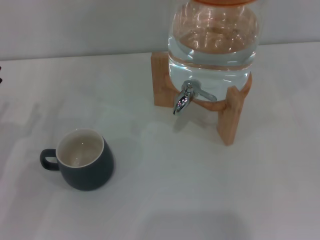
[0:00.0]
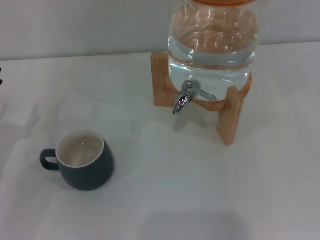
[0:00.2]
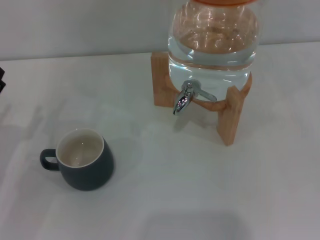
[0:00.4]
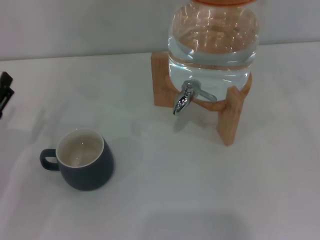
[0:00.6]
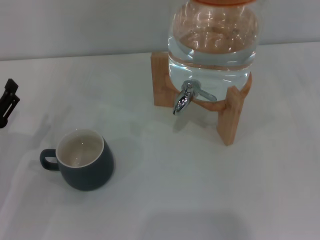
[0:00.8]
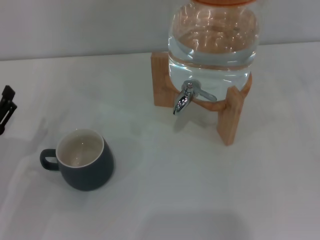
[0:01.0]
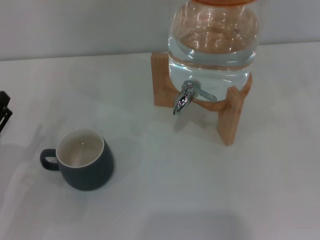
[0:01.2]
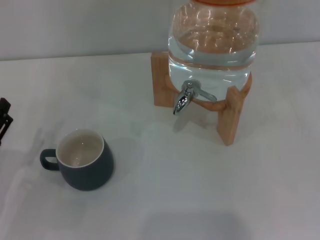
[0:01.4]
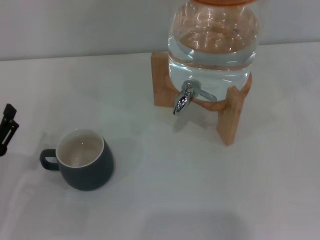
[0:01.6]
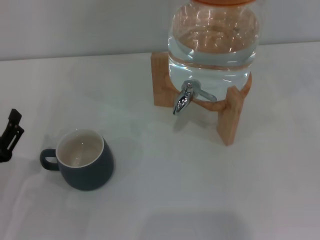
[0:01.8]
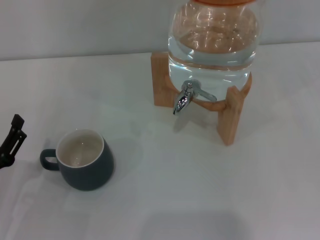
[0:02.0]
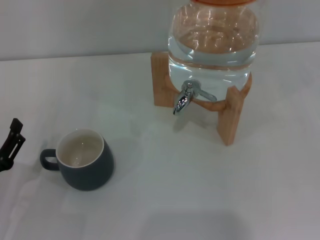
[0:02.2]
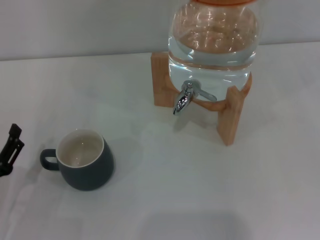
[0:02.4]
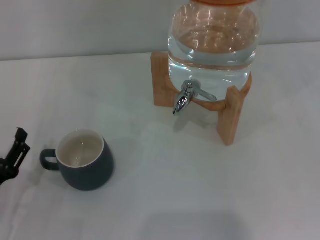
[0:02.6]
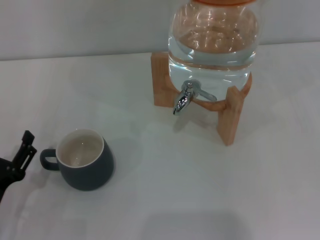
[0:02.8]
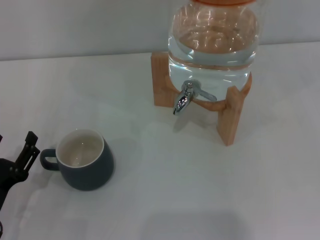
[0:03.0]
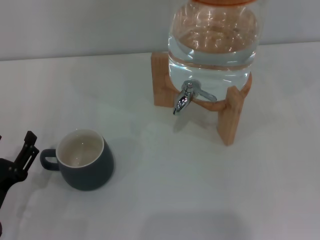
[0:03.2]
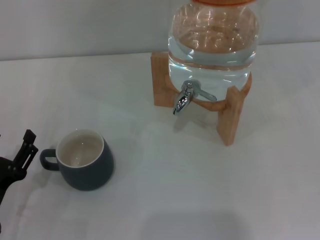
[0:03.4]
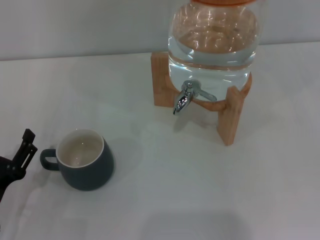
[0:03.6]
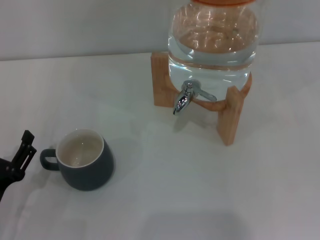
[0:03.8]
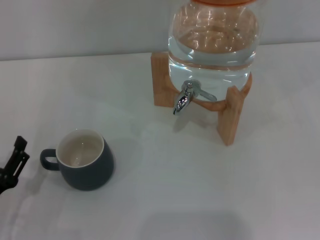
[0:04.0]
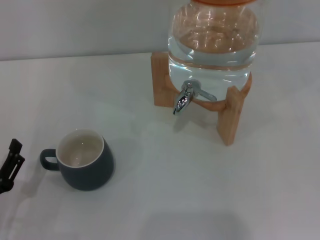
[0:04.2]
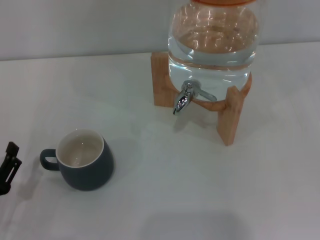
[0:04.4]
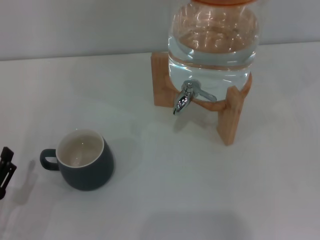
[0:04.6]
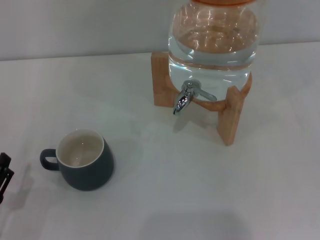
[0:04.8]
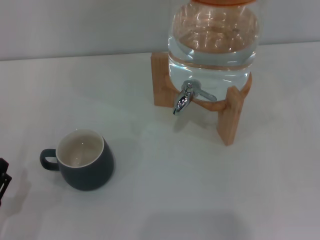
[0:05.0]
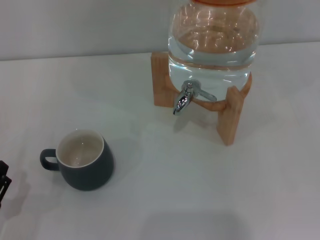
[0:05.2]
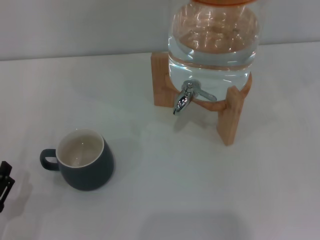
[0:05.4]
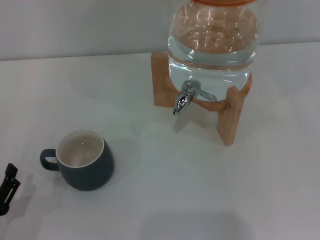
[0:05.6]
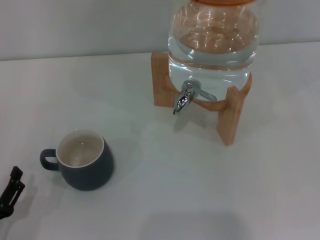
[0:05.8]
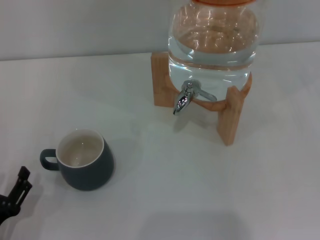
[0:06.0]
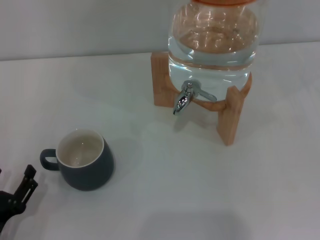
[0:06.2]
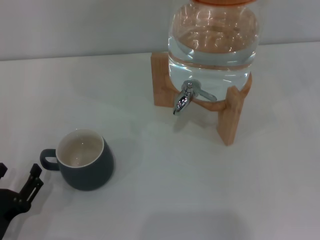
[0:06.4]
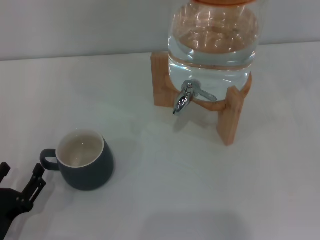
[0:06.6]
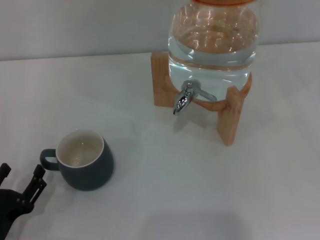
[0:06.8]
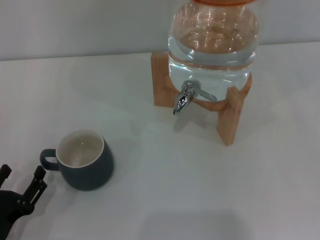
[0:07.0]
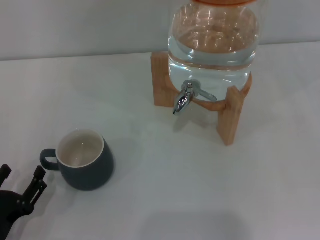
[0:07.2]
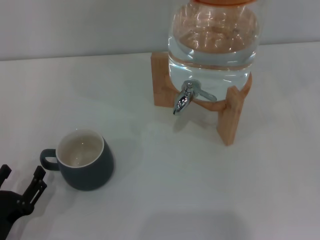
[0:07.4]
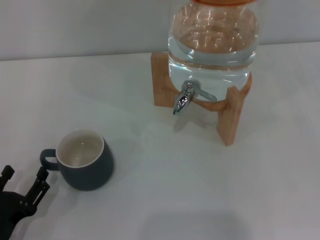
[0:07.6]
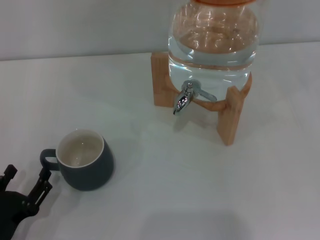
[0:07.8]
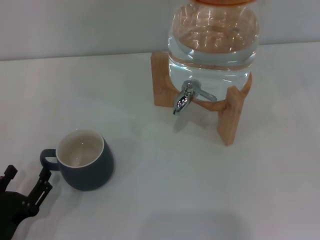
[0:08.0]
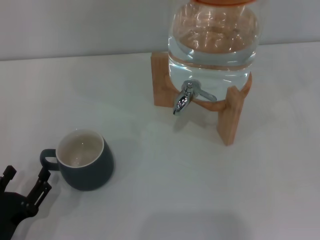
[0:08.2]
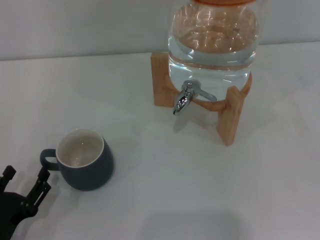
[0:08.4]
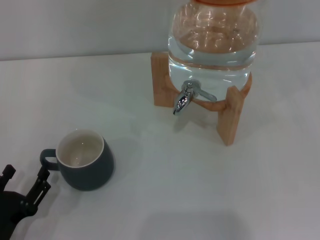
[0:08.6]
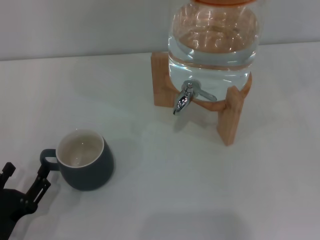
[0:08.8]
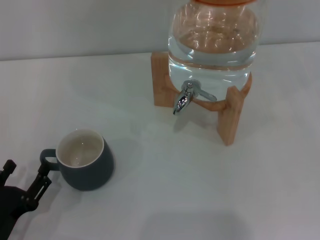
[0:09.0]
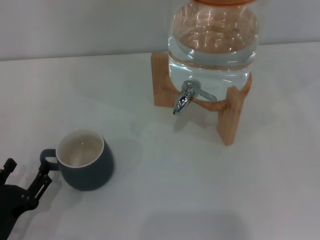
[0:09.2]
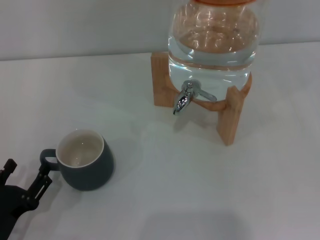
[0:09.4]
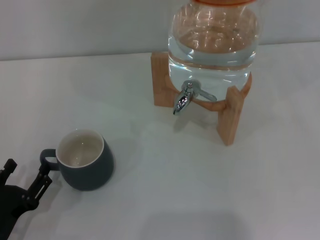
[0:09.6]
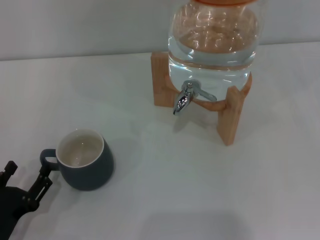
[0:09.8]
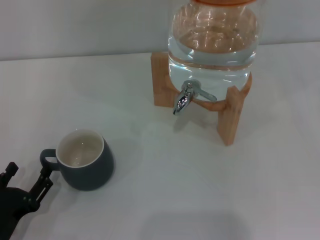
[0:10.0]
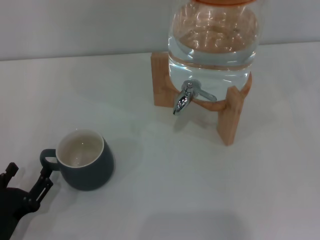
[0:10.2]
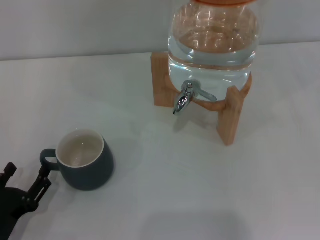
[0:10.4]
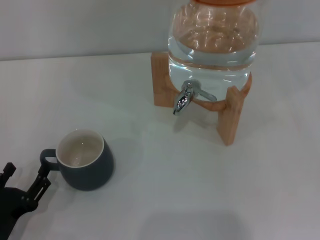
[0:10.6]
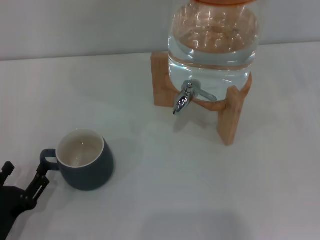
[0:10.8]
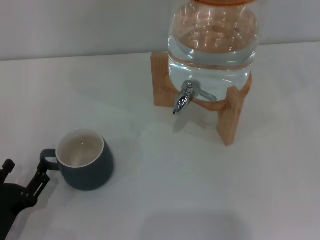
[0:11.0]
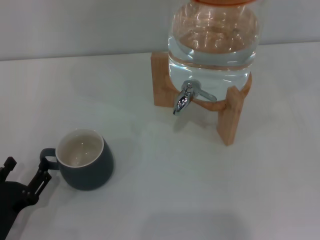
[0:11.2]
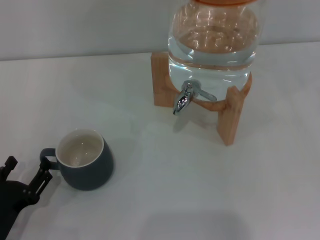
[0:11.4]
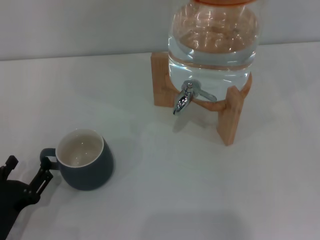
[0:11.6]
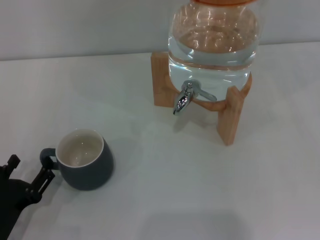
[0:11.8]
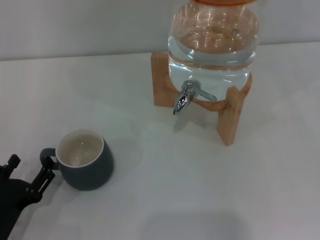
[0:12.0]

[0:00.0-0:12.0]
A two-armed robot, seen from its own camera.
Task of the whole recording: the left gripper pick up the black cup and place it horizontally under the faucet, the right gripper turn on the faucet to fill the cup, and then turn off the faucet.
0:00.0 to 0:01.6: The left gripper heads backward, covering approximately 5 cm.
0:01.6 to 0:04.4: The grippers make only small movements.
0:04.4 to 0:06.0: The grippers move only a little.
0:06.0 to 0:07.6: Both grippers stay about where they are.
0:07.6 to 0:10.4: Neither gripper changes place.
0:10.4 to 0:12.0: Both grippers stay put.

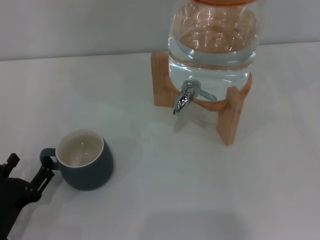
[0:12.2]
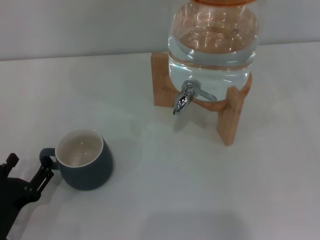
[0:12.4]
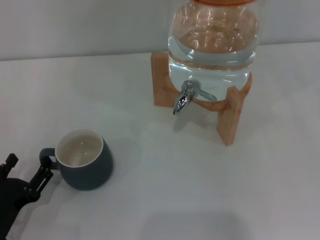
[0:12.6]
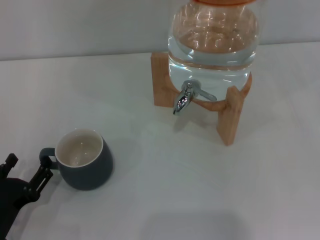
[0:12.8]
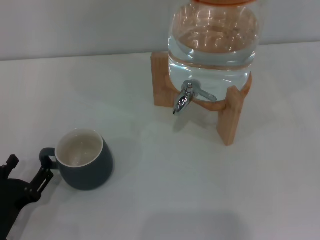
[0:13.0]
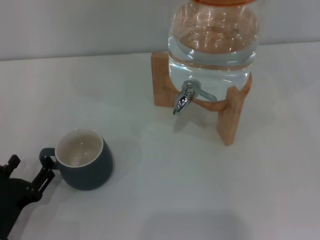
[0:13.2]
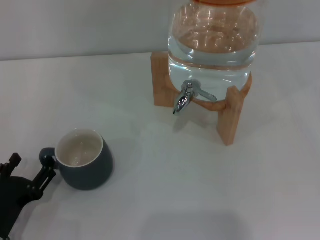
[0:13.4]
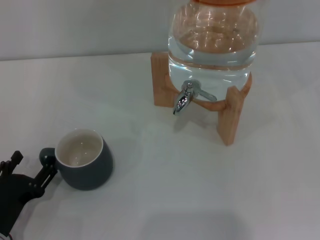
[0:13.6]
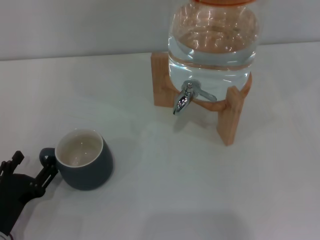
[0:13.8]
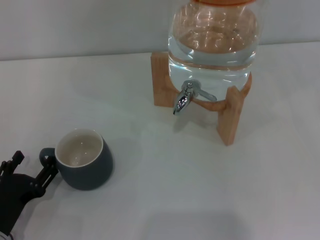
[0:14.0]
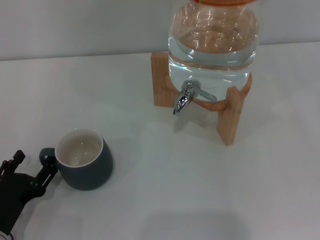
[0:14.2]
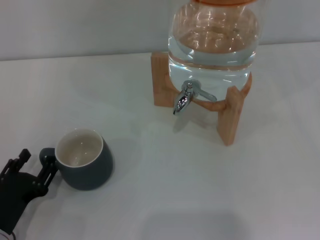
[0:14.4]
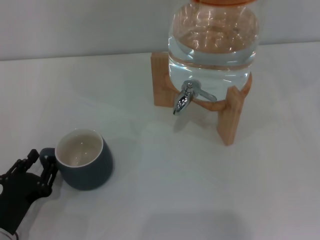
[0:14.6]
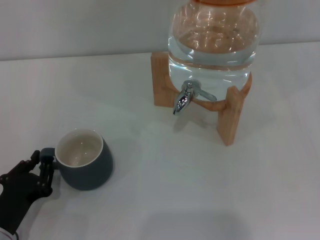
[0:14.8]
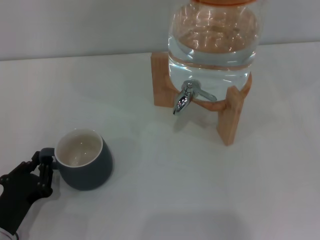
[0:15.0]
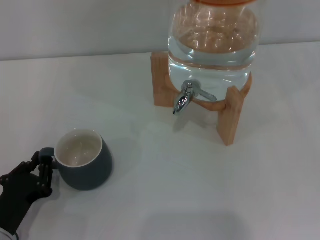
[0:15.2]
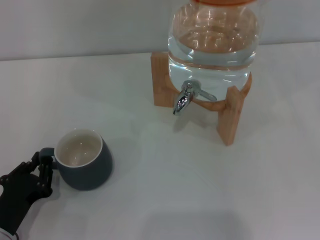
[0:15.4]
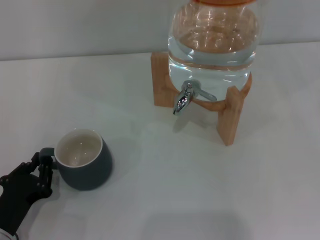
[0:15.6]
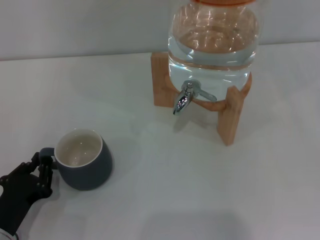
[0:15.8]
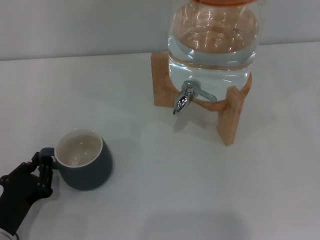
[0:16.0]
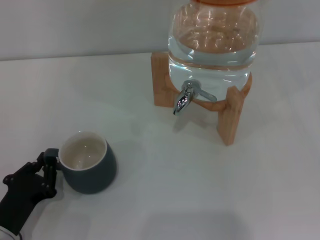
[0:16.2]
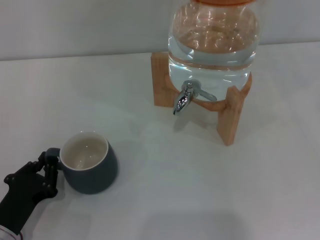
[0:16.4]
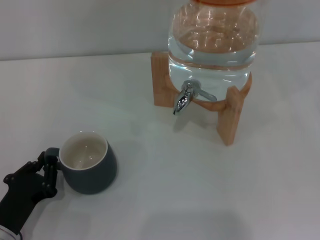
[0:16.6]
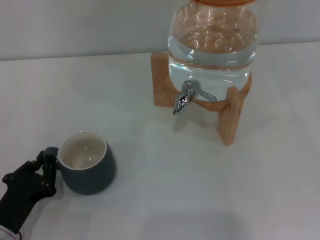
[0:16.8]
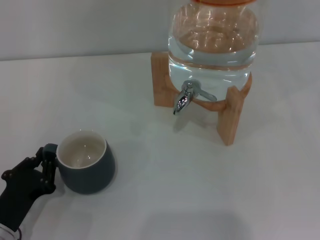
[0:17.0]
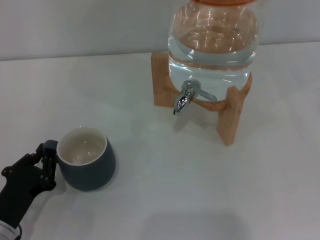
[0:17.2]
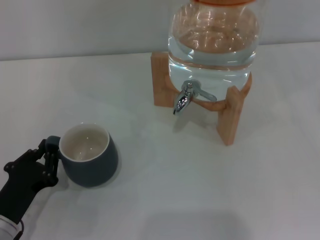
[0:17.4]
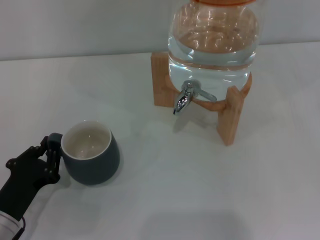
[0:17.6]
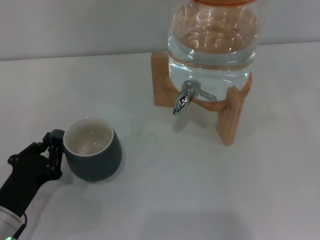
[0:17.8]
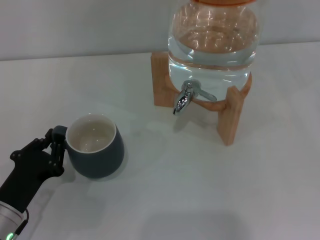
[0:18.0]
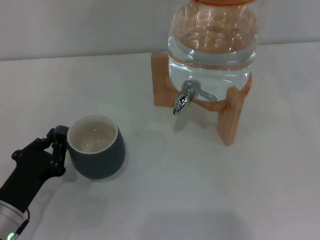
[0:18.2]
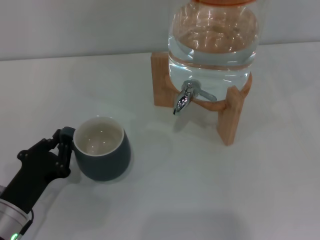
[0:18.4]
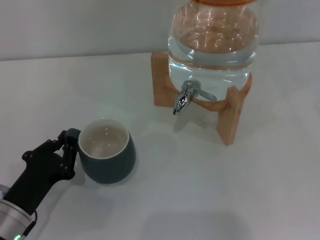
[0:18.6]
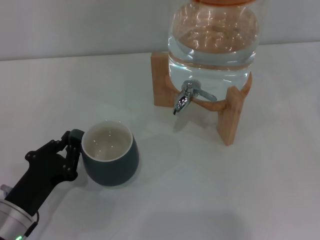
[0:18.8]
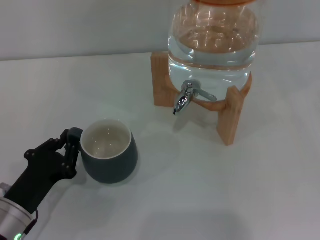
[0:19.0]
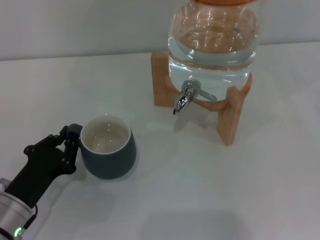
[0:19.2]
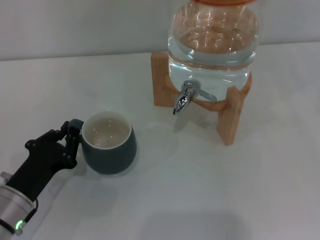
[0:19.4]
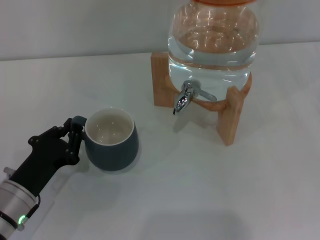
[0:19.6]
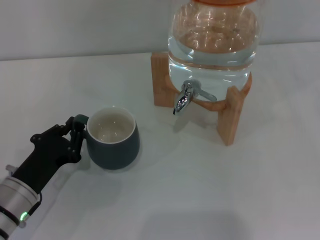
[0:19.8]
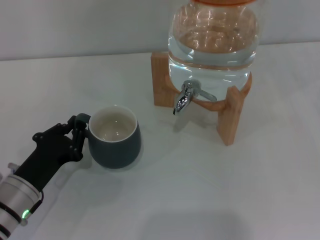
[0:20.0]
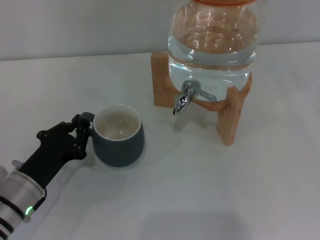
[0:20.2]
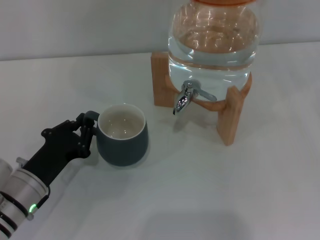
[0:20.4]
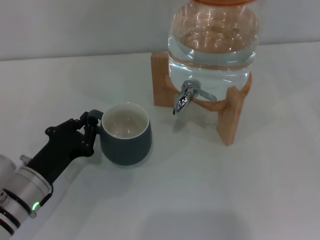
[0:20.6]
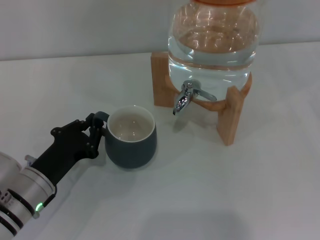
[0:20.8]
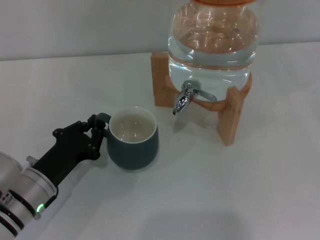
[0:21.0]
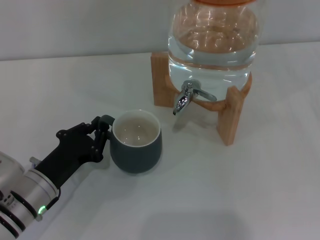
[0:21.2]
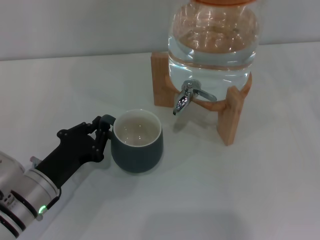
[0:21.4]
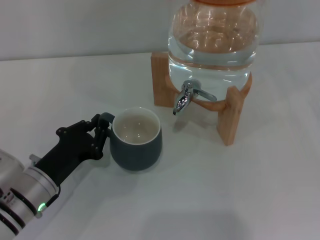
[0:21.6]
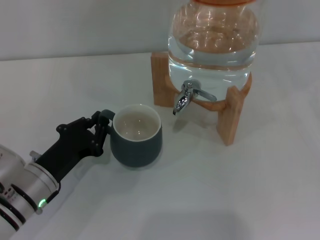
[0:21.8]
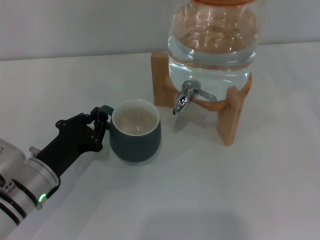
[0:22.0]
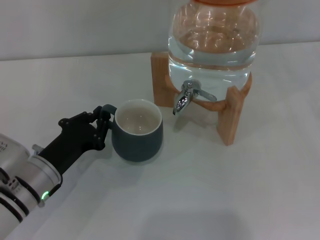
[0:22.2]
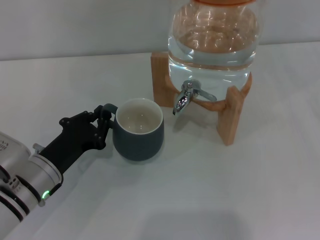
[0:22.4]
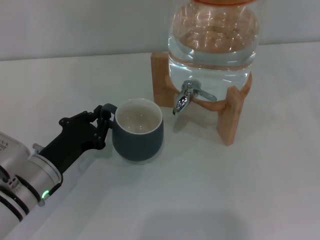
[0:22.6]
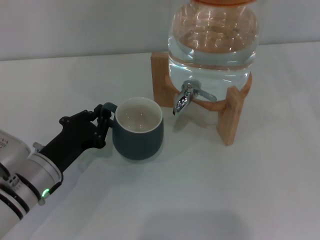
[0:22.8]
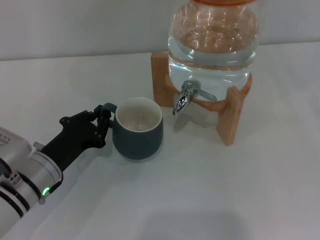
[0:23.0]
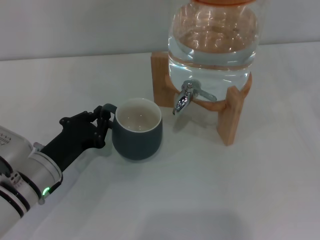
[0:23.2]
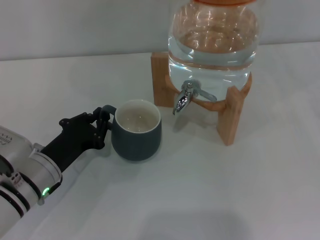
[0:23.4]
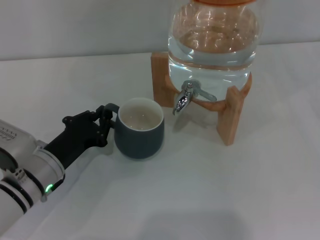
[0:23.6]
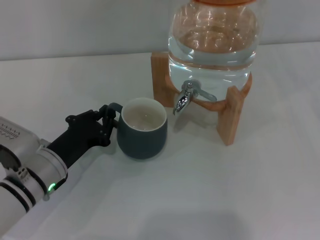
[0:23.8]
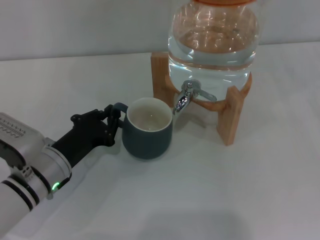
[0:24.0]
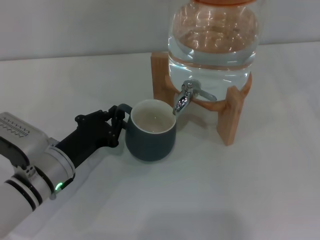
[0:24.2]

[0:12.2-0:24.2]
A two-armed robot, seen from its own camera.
Task of the whole recording: the left gripper pick up the black cup and place it horizontally under the faucet, the right gripper turn on the faucet to fill the cup, and then turn off the faucet.
0:12.2 to 0:13.8: Neither gripper changes place.
0:13.8 to 0:15.2: The left gripper closes.
0:15.2 to 0:16.6: Both grippers stay put.
0:16.6 to 0:18.2: The grippers move only a little.
0:18.2 to 0:21.2: The grippers stay close to where they were, moving slightly.
0:21.2 to 0:24.2: There are only small adjustments of the grippers.
